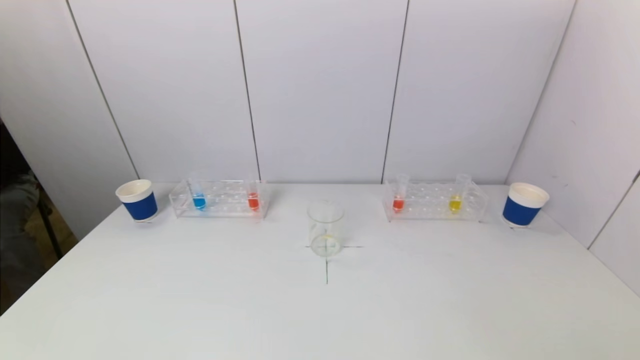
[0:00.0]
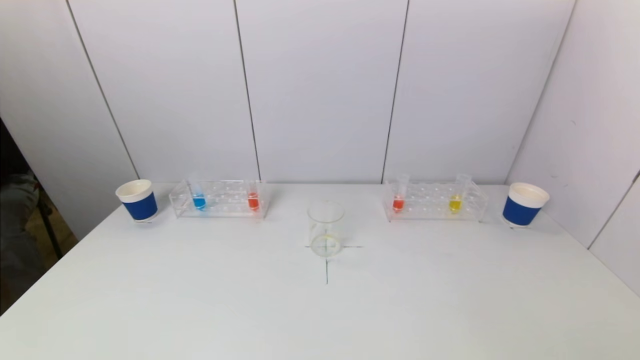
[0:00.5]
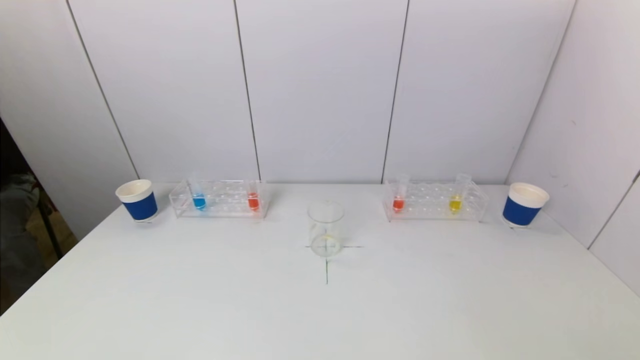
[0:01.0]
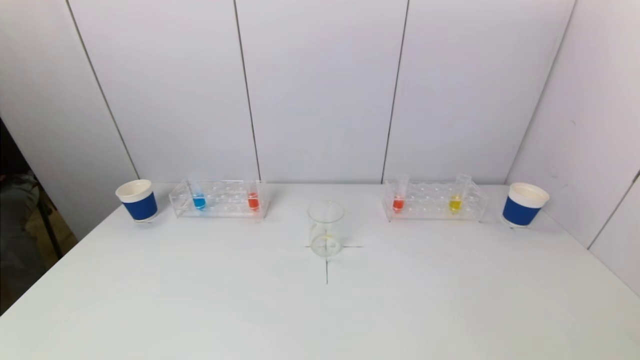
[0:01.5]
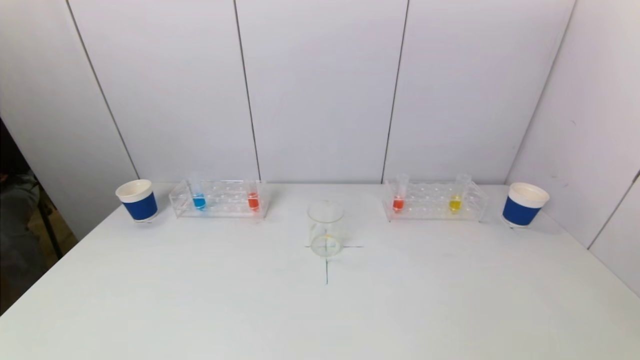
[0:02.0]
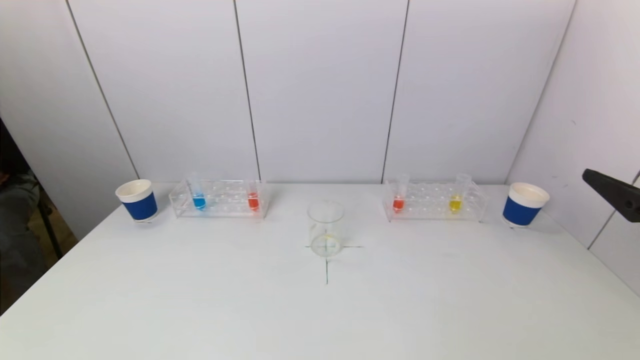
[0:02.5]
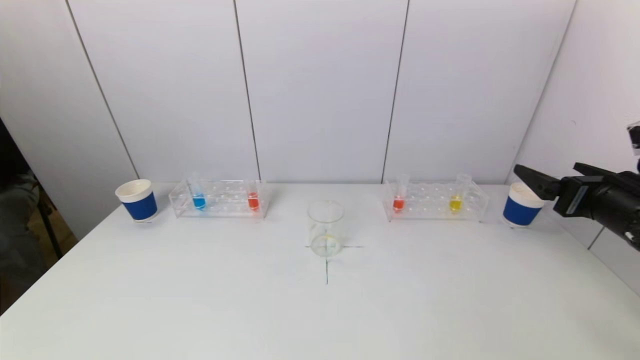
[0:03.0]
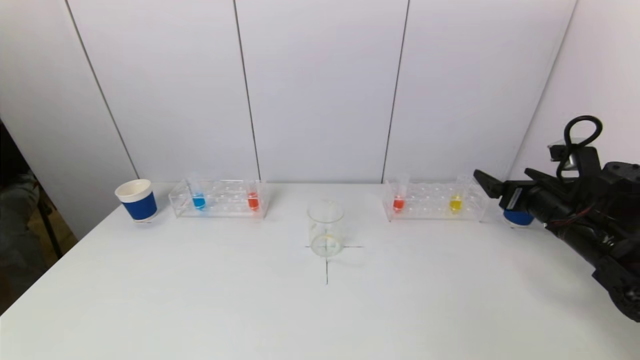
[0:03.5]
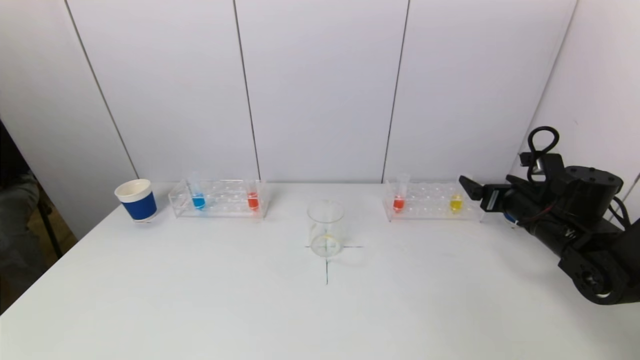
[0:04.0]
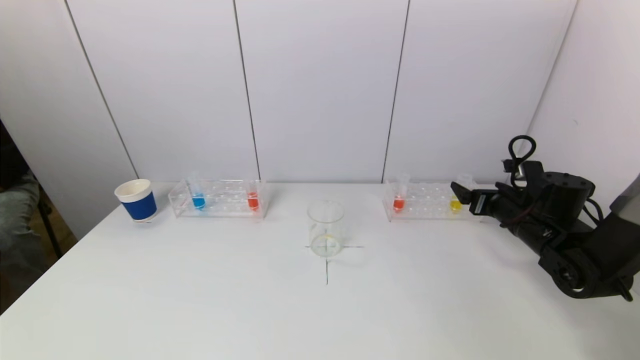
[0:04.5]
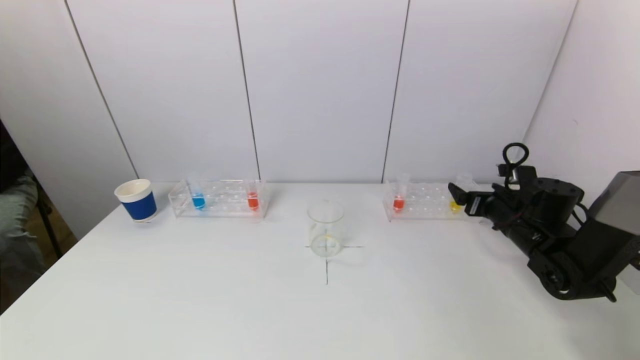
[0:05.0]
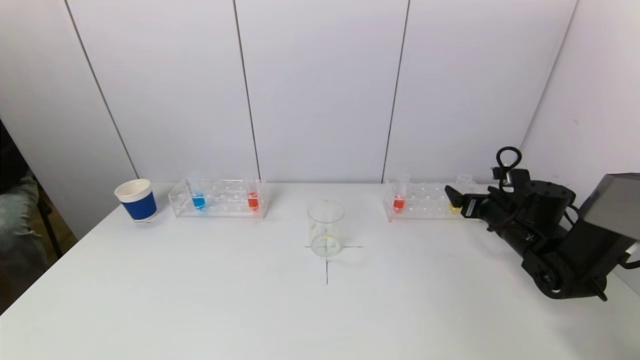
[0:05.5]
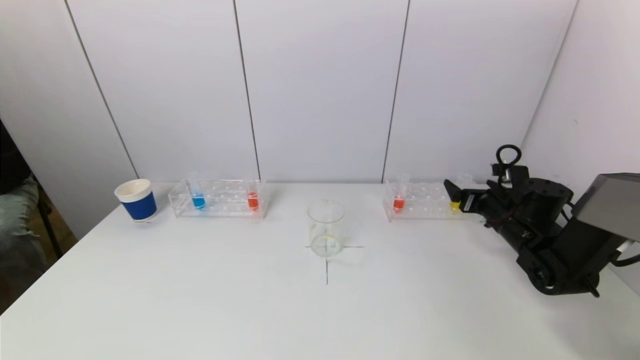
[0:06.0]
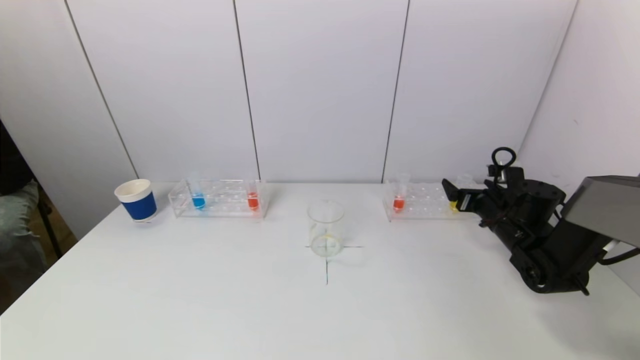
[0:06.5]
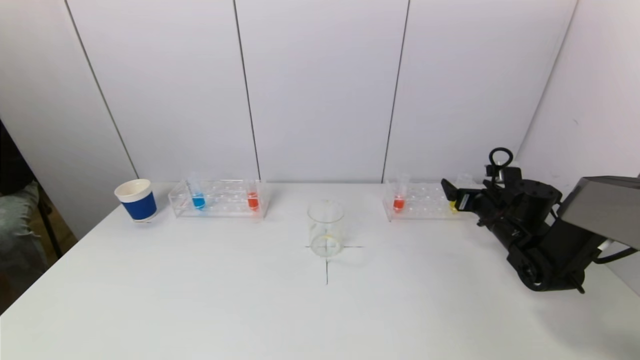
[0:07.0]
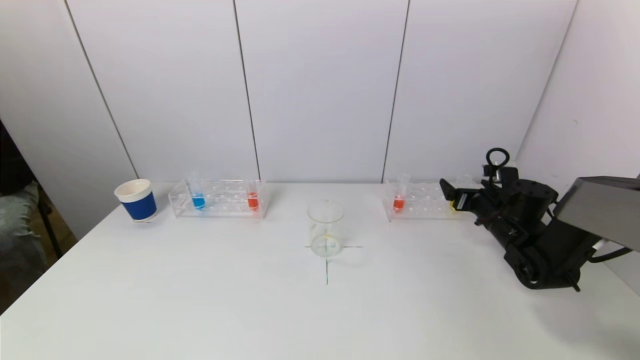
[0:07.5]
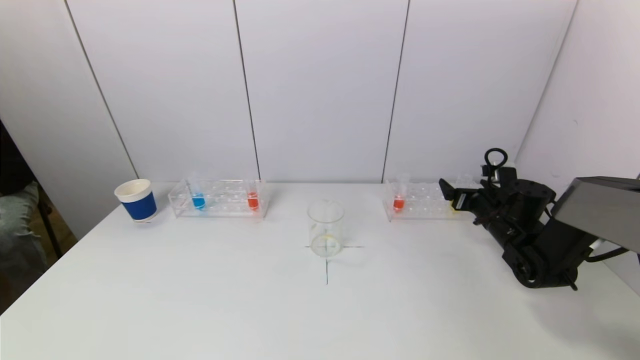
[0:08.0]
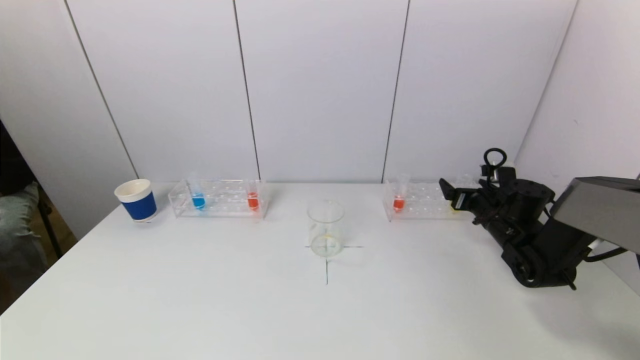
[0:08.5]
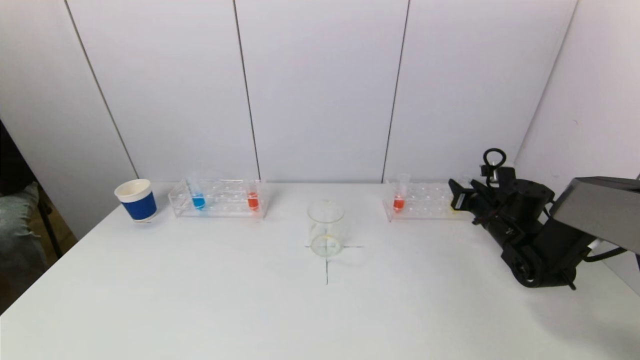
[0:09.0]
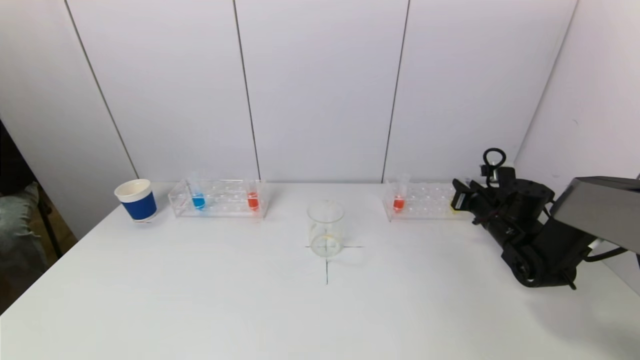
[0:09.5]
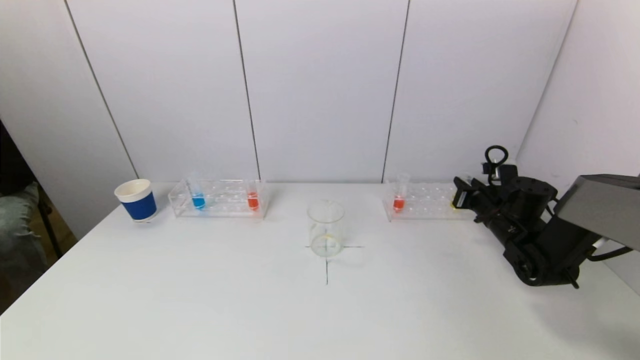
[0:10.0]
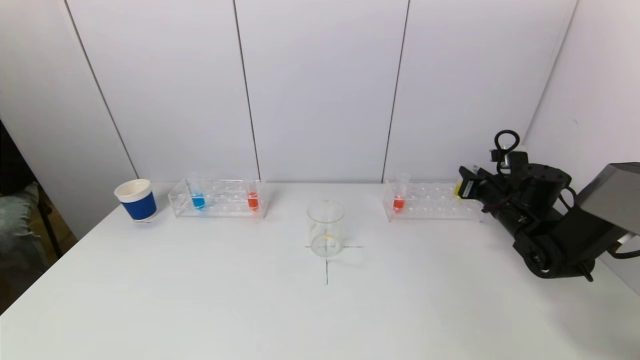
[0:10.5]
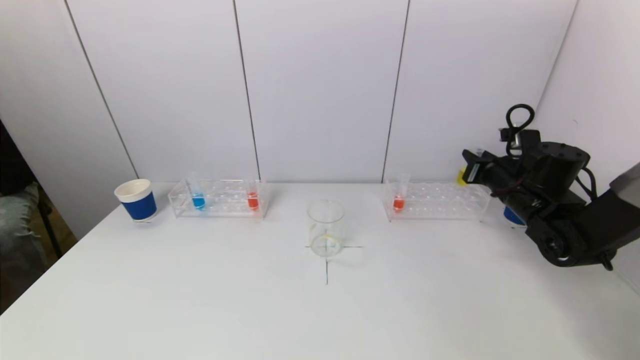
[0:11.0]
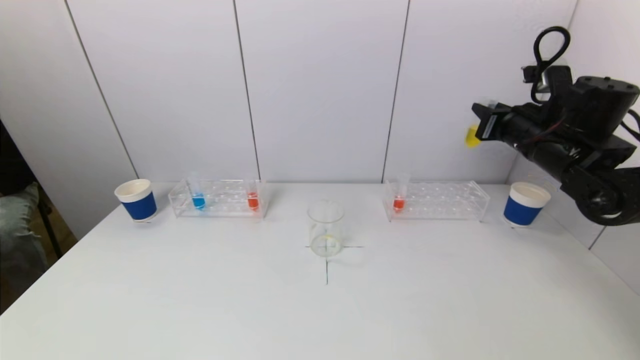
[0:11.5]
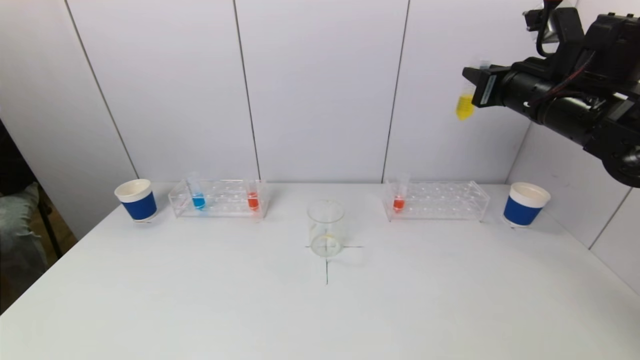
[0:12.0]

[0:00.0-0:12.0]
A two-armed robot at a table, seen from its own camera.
Task of the whole recording: pick up a test tube with pigment on left test tube rack and a test tube with pigment on right test tube rack by grippers and pour them into the beaker.
Step, 0:00.0 to 0:09.0: Grasp the yellow reagent with the right gripper.
0:02.0 to 0:04.0: The right gripper travels forward by approximately 30 cm.
0:04.0 to 0:06.0: The right gripper moves approximately 5 cm.
0:06.0 to 0:08.0: The grippers make only small movements.
0:08.0 to 0:10.0: The right gripper closes its fingers.
0:10.0 to 0:12.0: The right gripper heads upward, covering approximately 25 cm.

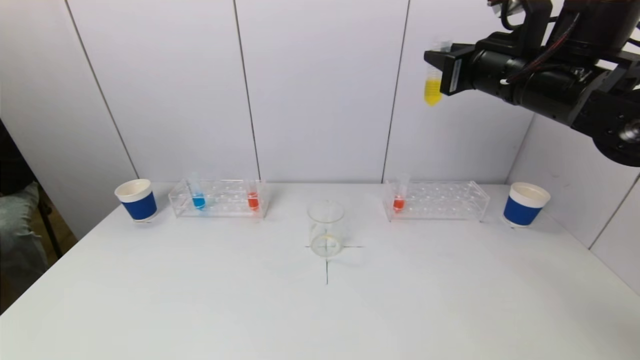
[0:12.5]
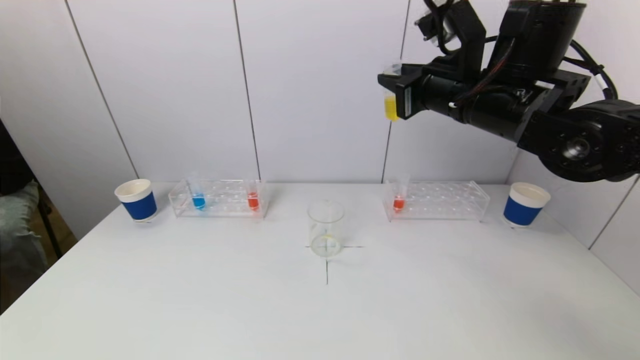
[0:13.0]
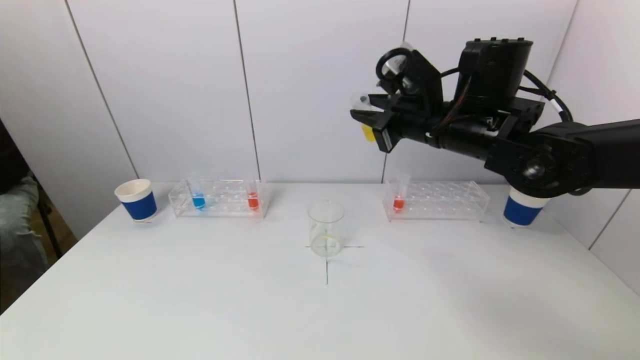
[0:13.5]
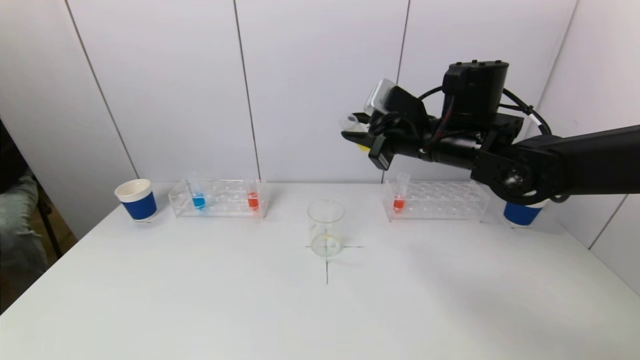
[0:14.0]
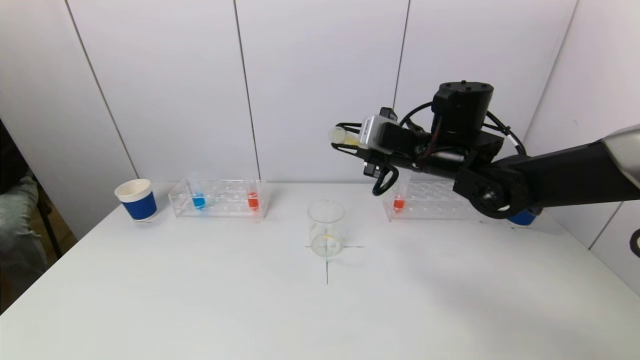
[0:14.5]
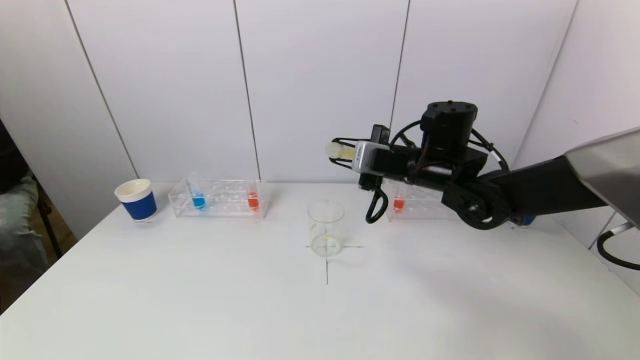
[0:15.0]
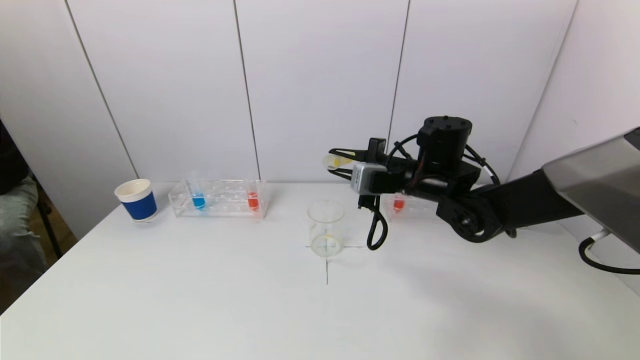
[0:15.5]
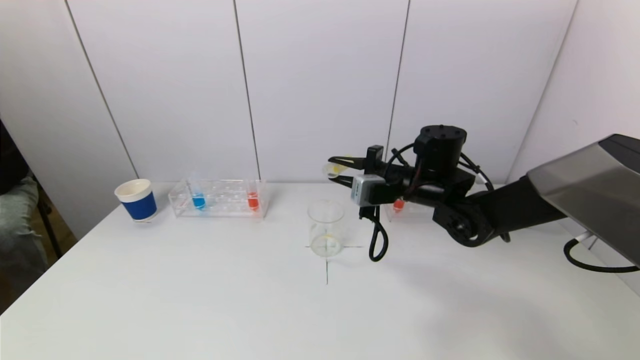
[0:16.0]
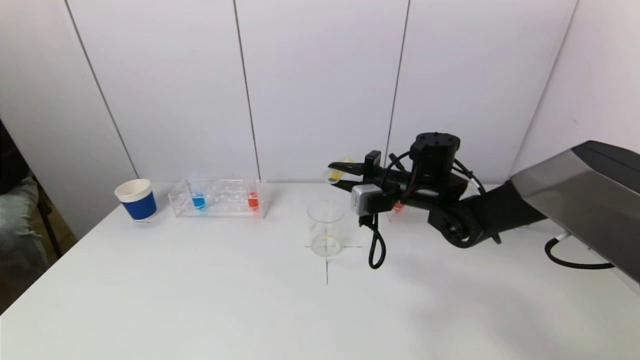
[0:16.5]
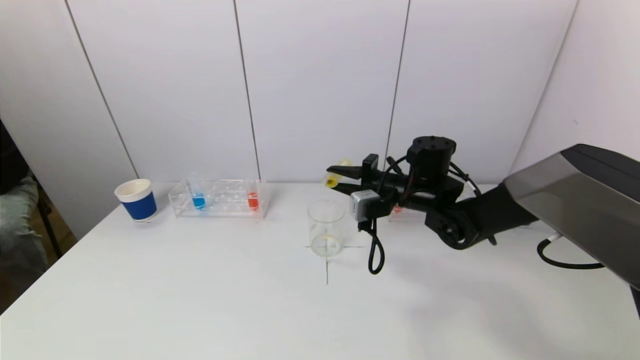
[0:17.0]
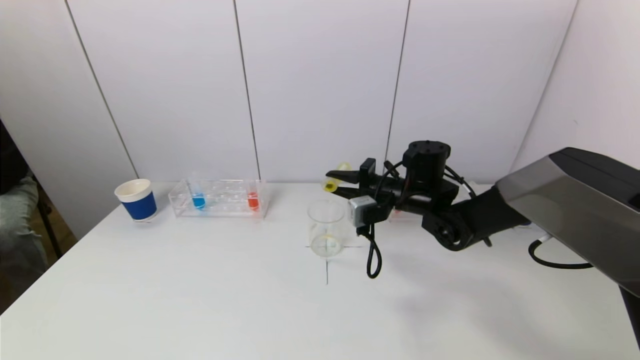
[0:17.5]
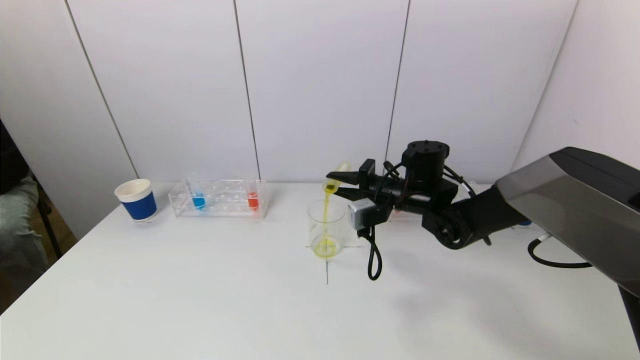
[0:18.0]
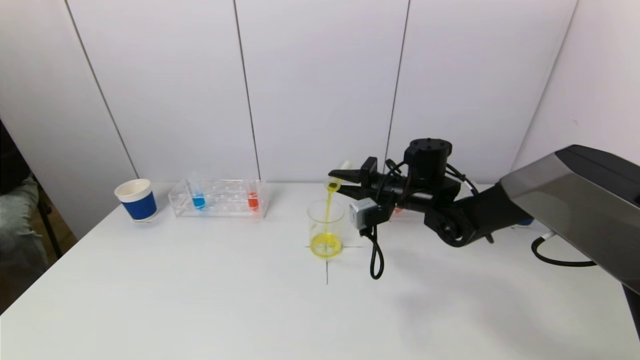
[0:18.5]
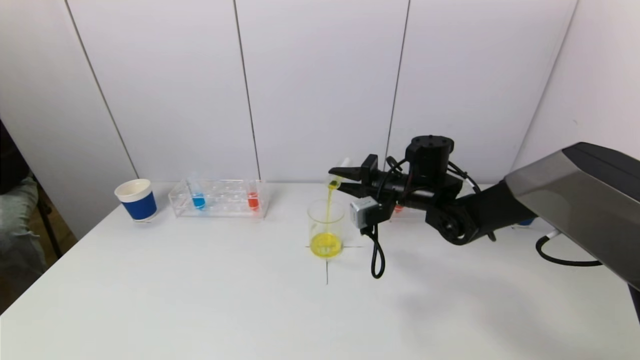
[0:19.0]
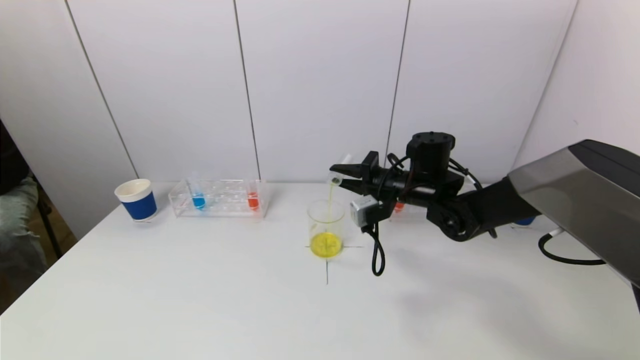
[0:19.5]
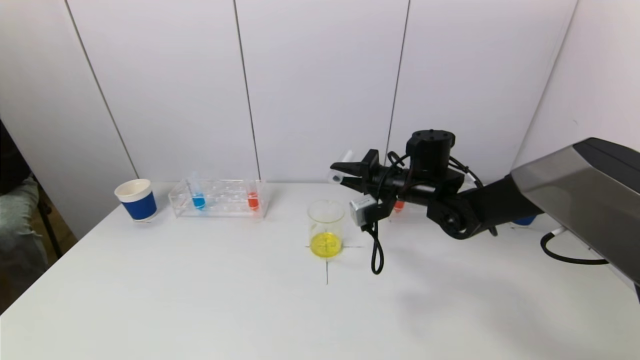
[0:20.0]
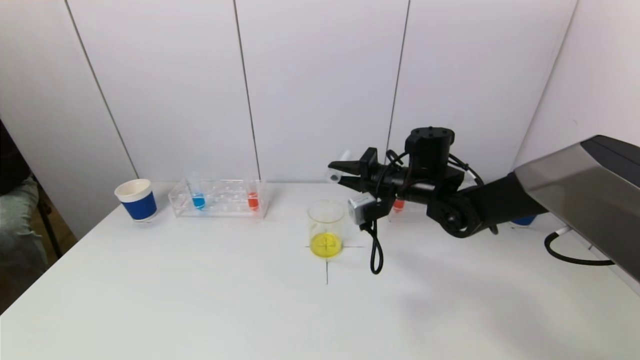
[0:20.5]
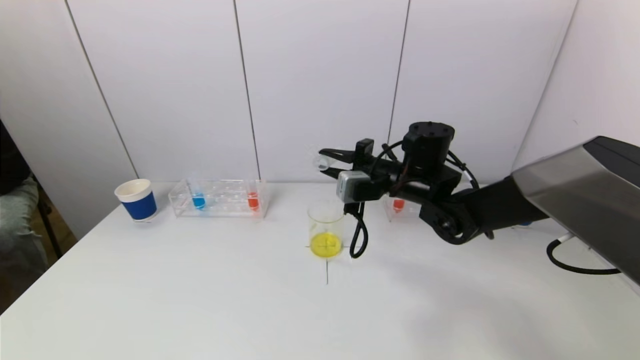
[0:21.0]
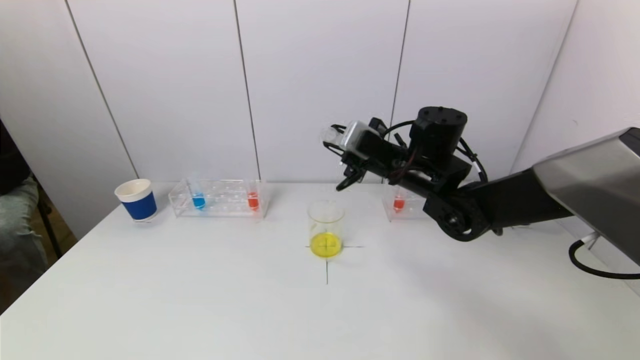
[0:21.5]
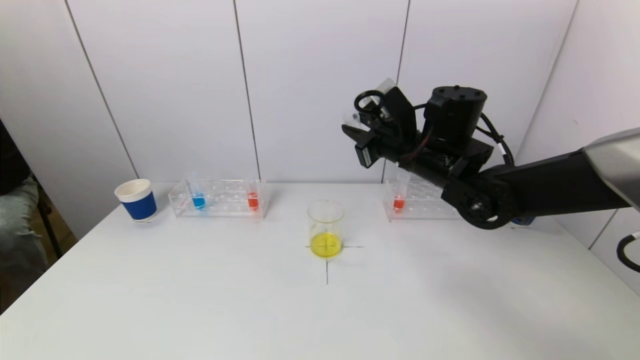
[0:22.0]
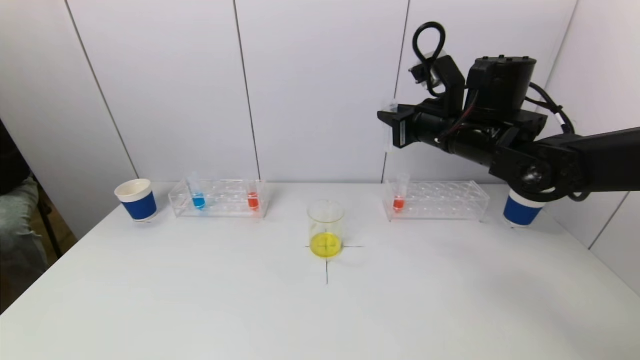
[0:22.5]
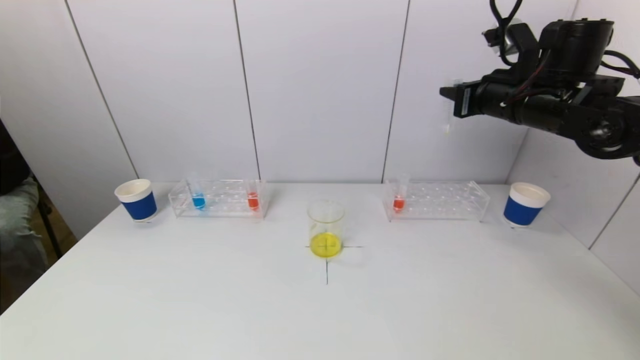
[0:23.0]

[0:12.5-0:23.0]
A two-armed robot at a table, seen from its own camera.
Task of the whole recording: pick up a test tube with pigment on left test tube rack and a test tube with pigment on right test tube rack by grippers and pour them into the beaker.
Step, 0:12.5 to 0:20.5: Pour the yellow reagent into the graduated cylinder with the right gripper.
0:12.5 to 0:14.5: The right gripper travels downward and to the left by about 15 cm.
0:14.5 to 0:16.5: The right gripper is displaced downward by roughly 10 cm.
0:16.5 to 0:19.0: The grippers stay close to where they were, moving slightly.
0:19.0 to 0:21.0: There are only small adjustments of the grippers.
0:21.0 to 0:23.0: The right gripper shifts some 20 cm to the right and upward.
